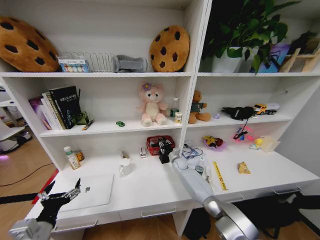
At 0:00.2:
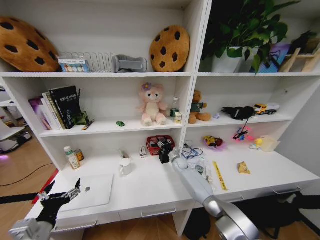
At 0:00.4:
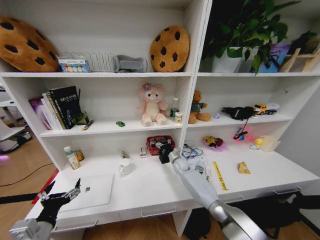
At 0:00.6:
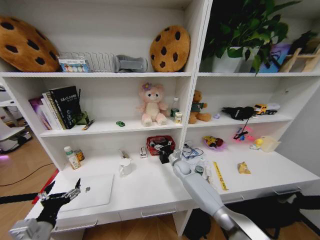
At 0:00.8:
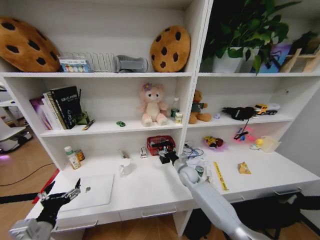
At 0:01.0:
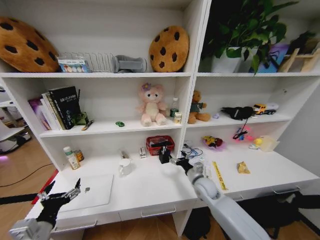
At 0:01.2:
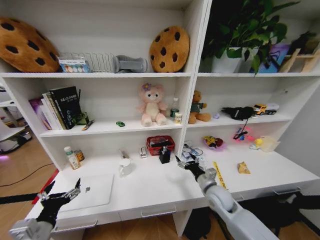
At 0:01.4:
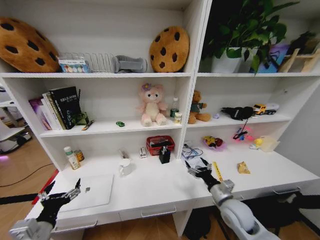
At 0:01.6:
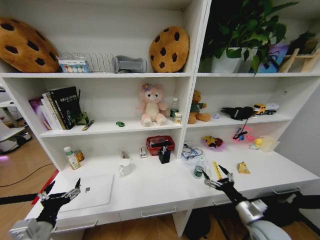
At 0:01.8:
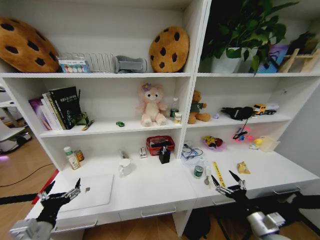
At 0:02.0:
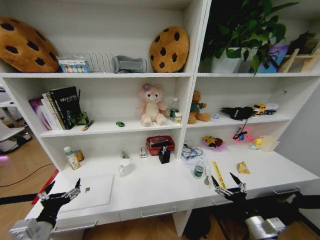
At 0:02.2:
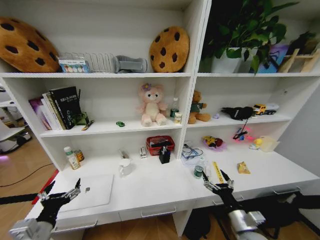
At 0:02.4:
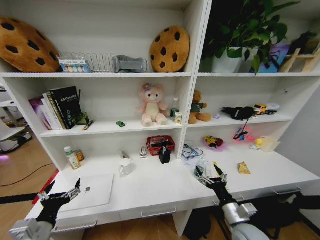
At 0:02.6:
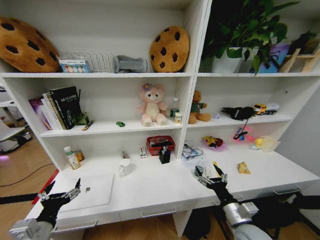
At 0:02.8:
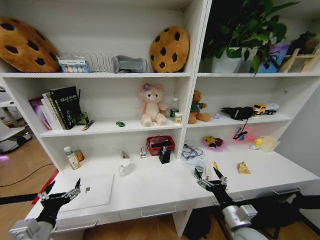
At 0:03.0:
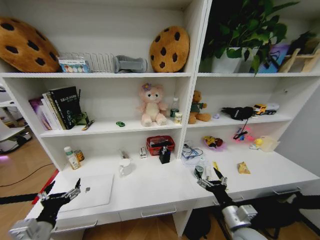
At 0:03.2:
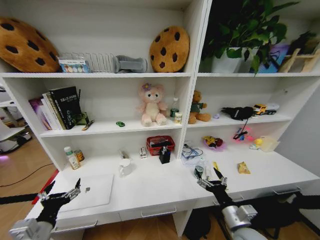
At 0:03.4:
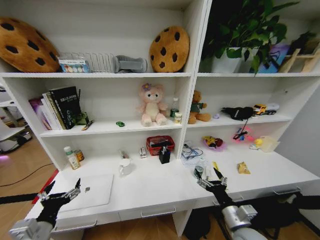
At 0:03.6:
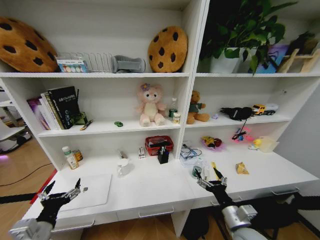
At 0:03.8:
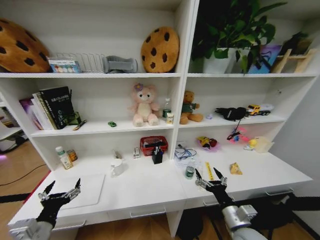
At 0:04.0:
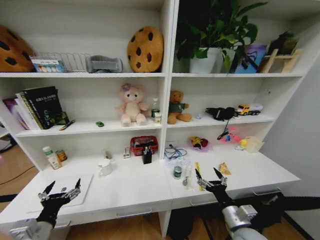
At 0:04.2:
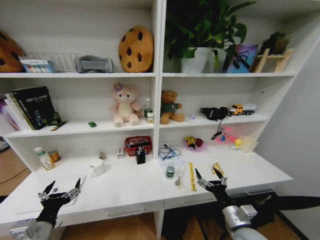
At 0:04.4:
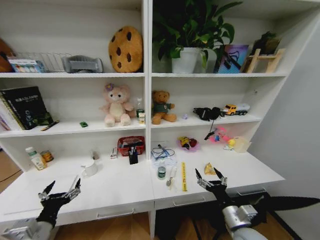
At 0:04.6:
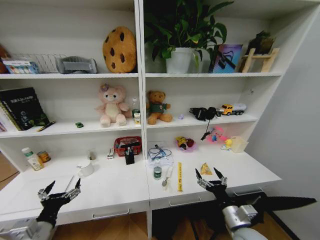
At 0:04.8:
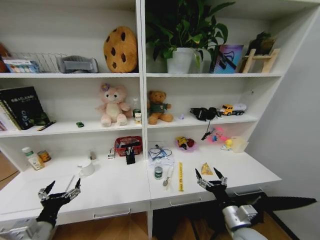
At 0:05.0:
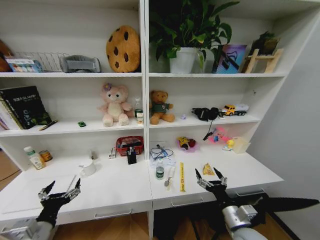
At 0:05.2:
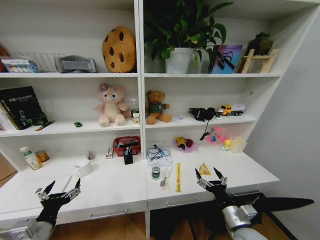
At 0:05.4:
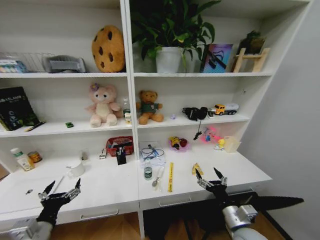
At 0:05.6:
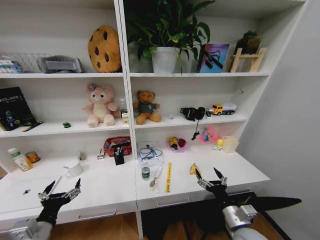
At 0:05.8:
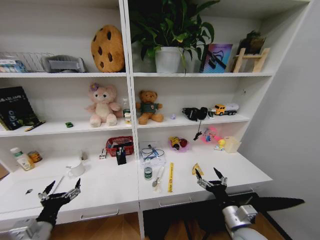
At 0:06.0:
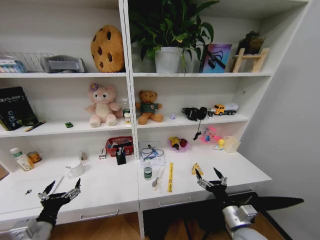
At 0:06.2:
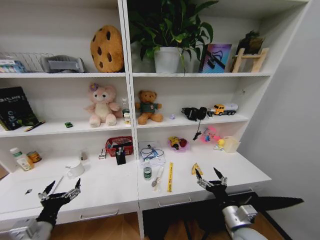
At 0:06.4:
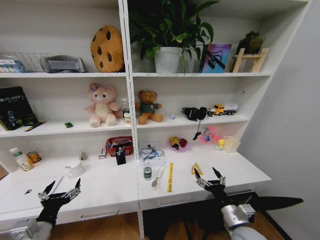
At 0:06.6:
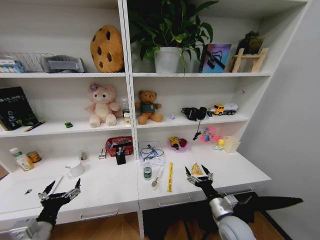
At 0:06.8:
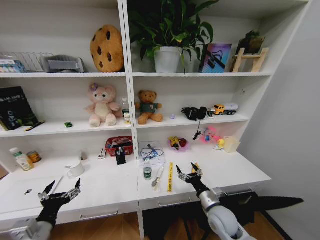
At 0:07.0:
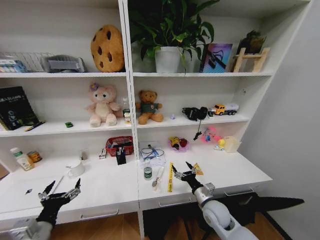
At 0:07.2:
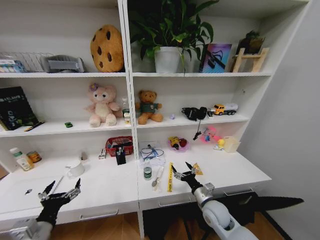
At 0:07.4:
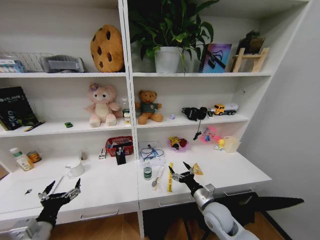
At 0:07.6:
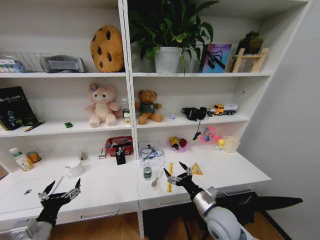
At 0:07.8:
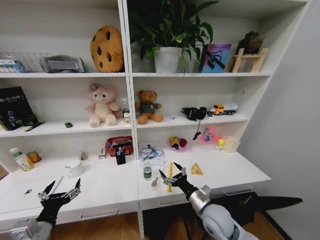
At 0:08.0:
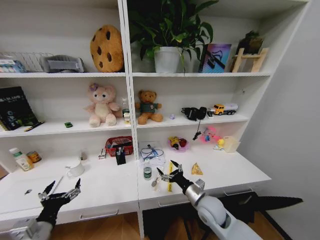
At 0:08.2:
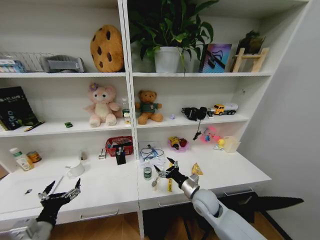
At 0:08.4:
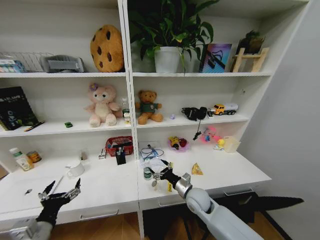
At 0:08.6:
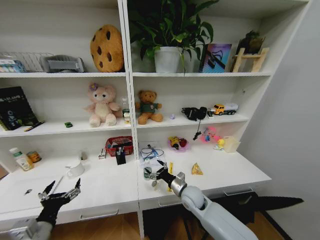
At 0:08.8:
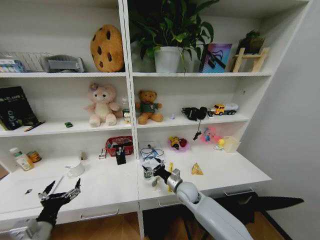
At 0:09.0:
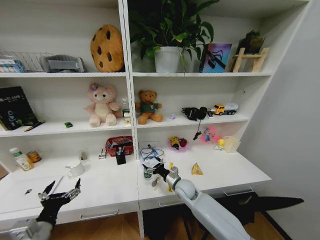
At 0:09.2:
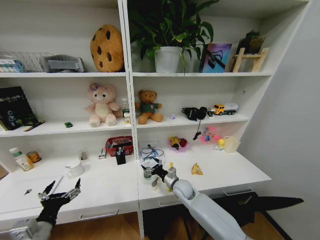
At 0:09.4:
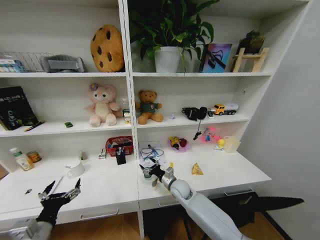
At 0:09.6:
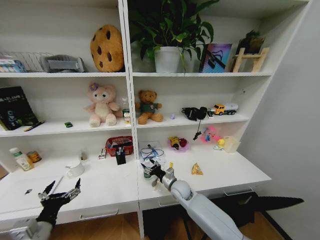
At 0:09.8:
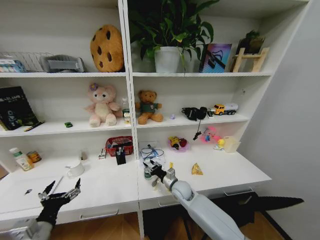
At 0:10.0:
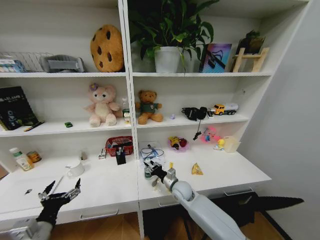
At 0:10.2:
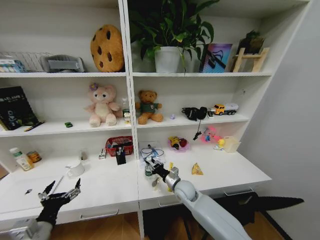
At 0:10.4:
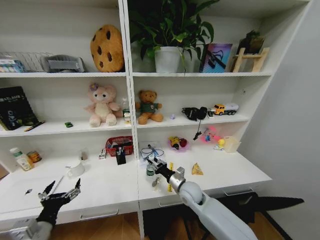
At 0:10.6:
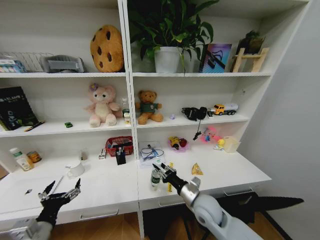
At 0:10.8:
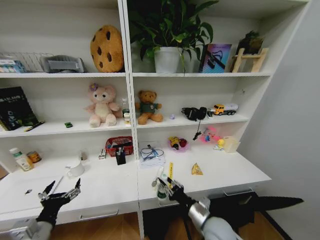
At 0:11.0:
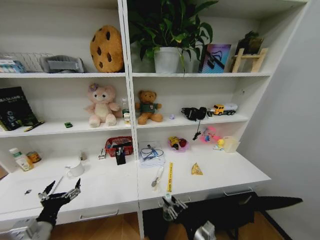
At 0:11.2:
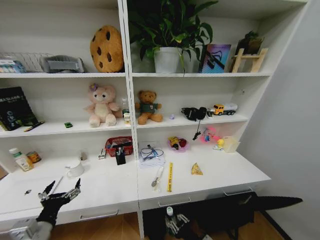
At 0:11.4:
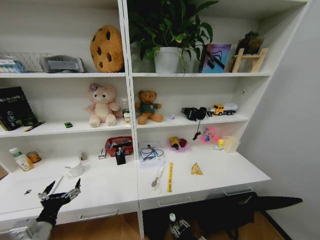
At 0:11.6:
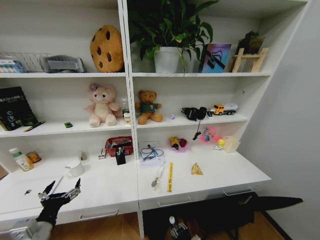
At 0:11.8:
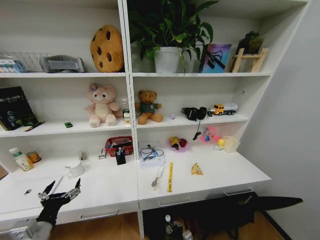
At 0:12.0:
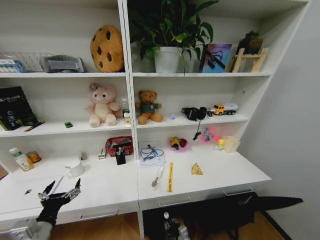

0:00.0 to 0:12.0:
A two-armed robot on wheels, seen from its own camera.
Task of the whole recording: Organize the objects on the table.
0:00.0 to 0:01.6: The right gripper travels backward and to the right by about 40 cm, and opens.
0:01.6 to 0:03.0: The right gripper shifts roughly 10 cm to the left.
0:06.0 to 0:07.6: The right gripper moves to the left and forward, approximately 10 cm.
0:07.6 to 0:09.0: The right gripper travels forward, to the left and downward by approximately 15 cm.
0:09.0 to 0:10.4: The right gripper closes up.
0:10.4 to 0:12.0: The right gripper travels downward and backward by about 30 cm.

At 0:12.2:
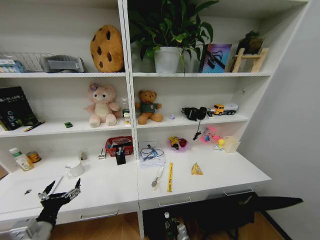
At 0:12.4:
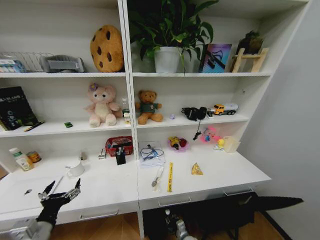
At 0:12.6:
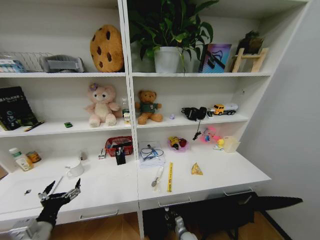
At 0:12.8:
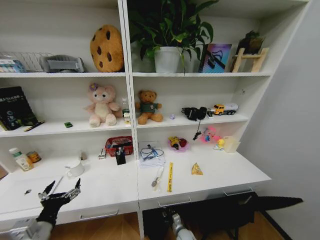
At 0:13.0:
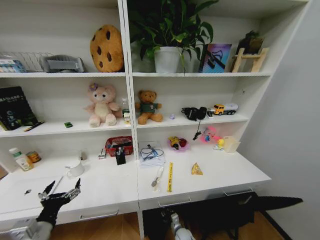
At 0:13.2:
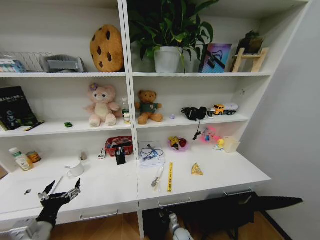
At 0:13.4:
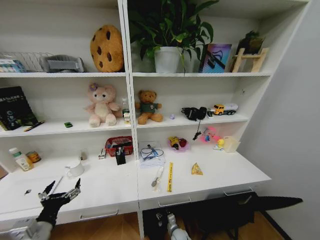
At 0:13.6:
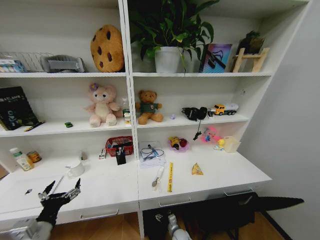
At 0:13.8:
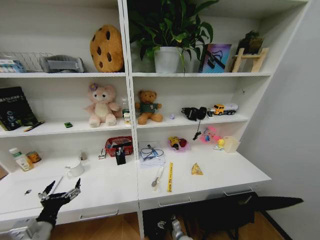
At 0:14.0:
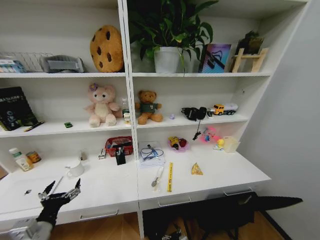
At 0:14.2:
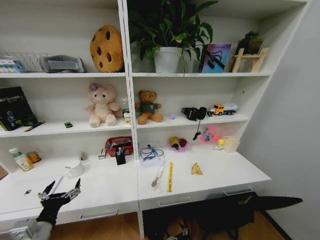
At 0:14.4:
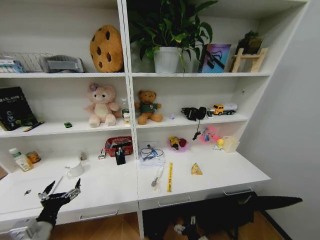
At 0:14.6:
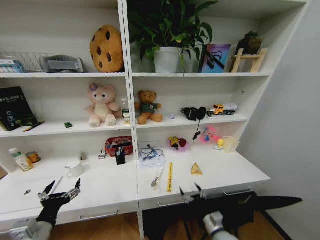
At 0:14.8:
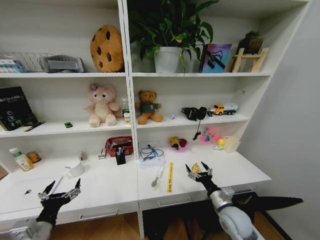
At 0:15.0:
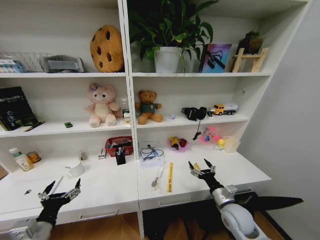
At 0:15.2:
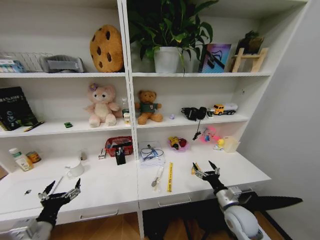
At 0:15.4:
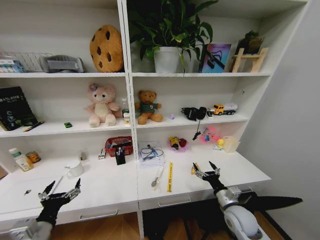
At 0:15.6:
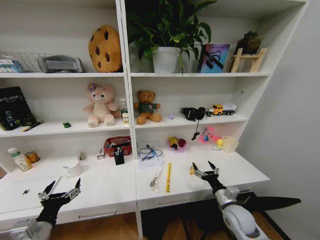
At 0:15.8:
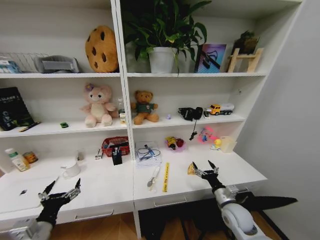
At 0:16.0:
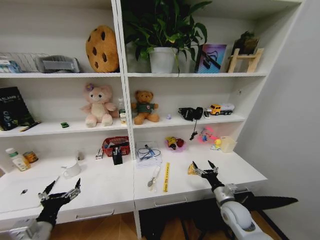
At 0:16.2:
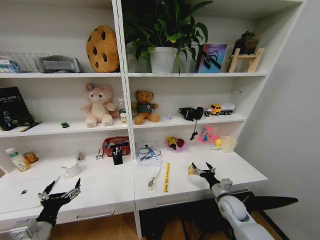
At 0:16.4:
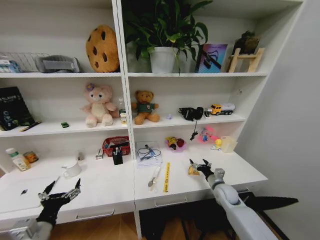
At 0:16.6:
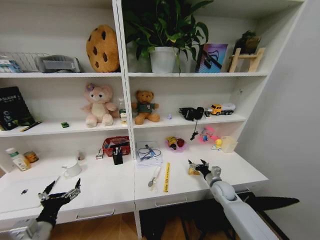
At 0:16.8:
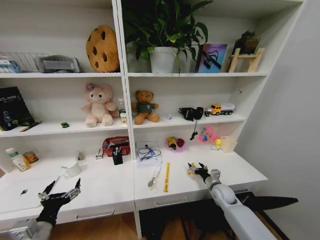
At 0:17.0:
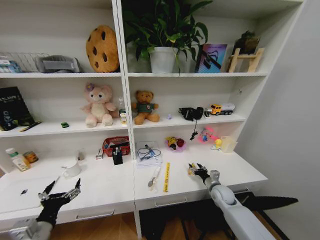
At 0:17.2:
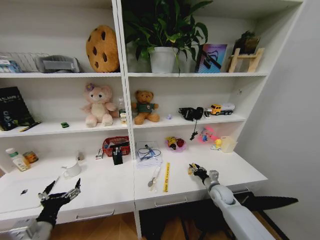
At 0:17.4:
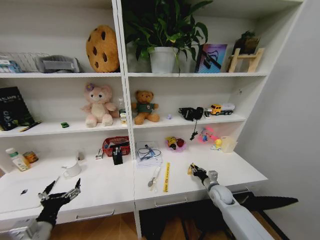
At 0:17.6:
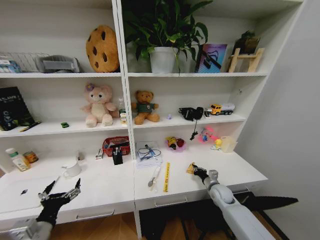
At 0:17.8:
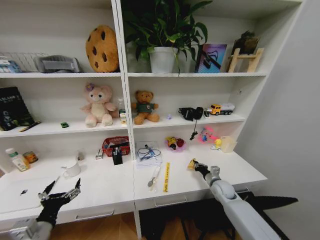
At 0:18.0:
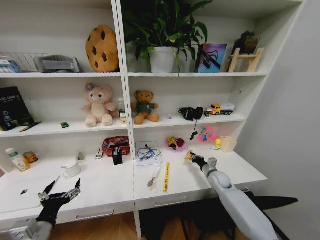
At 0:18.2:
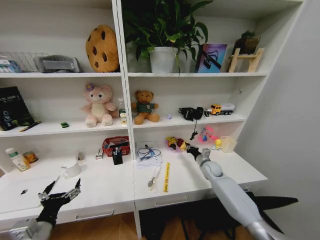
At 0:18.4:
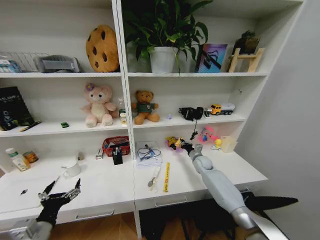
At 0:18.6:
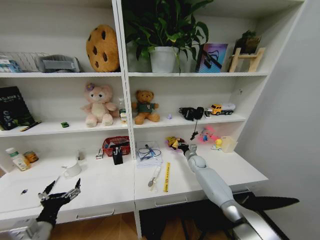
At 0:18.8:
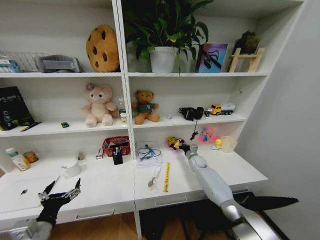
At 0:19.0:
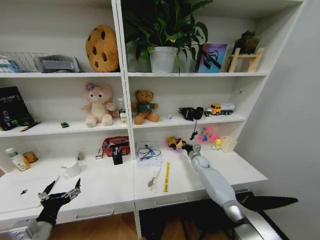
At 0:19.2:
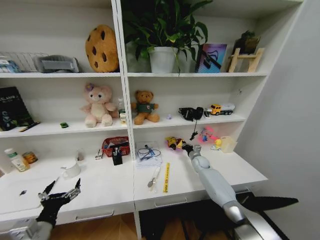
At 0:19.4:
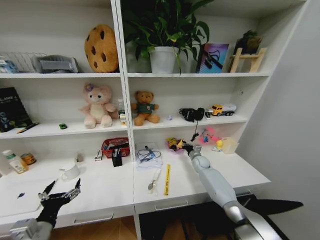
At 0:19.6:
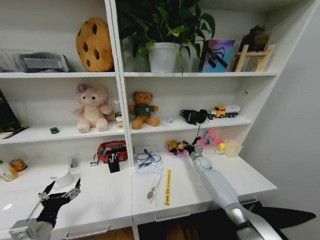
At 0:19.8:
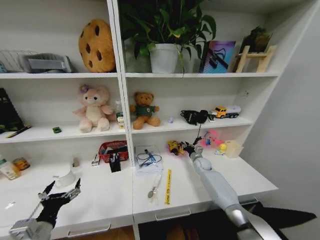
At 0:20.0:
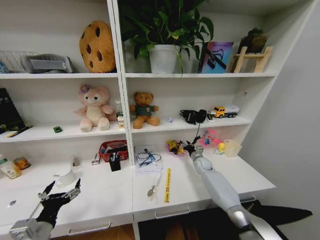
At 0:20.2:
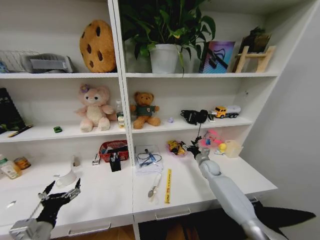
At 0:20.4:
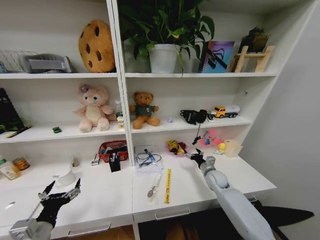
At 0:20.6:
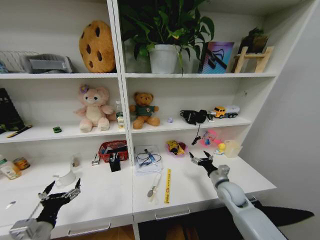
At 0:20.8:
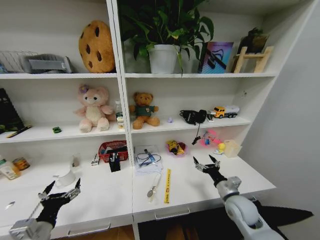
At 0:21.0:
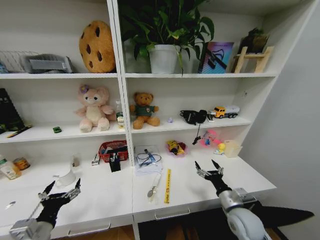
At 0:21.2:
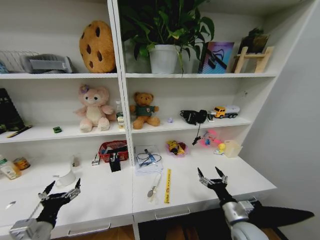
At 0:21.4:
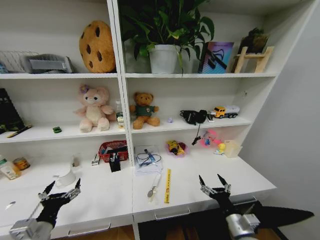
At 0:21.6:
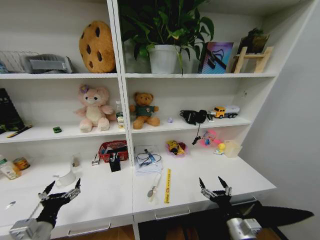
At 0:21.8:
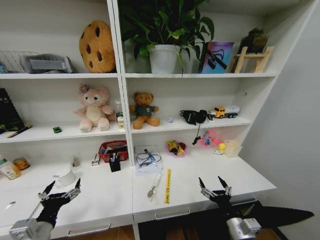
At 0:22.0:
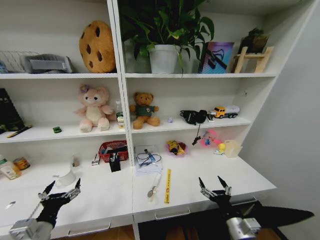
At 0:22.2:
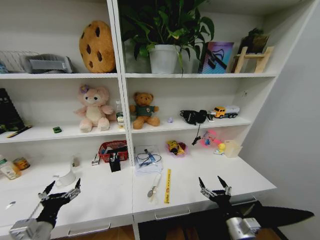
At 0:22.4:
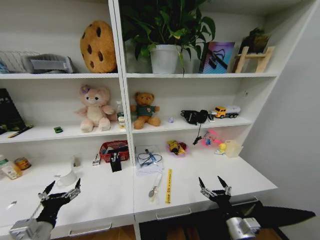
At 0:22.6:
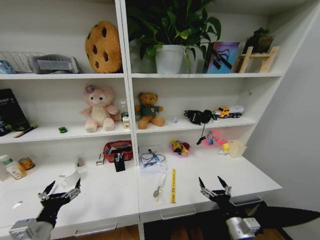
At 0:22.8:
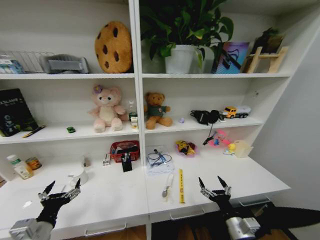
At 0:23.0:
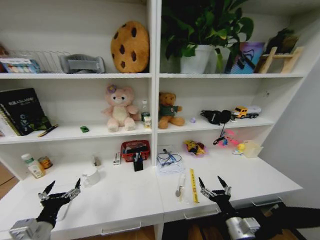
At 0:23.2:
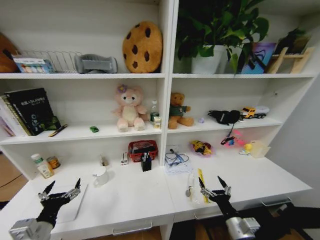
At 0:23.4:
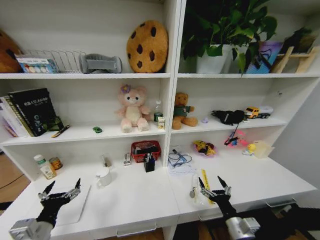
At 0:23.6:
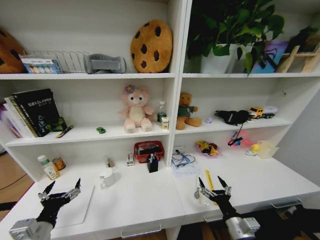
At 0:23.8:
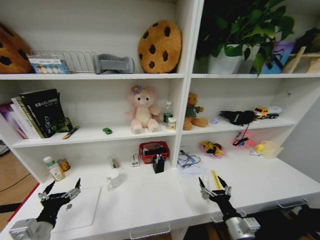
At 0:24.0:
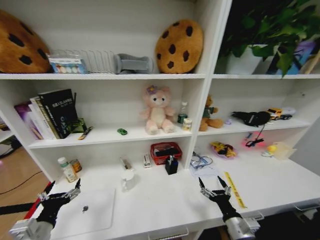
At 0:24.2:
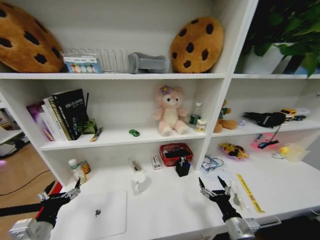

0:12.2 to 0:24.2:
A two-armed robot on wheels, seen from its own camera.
Task of the whole recording: Organize the objects on the table.
0:13.8 to 0:15.2: The right gripper travels upward and to the right by some 35 cm.
0:15.2 to 0:16.6: The right gripper travels forward by roughly 15 cm.
0:16.6 to 0:18.2: The right gripper shifts about 10 cm forward, and closes its fingers.
0:18.2 to 0:19.8: The right gripper is displaced forward by roughly 5 cm.
0:19.8 to 0:21.2: The right gripper is displaced backward by approximately 35 cm, and opens up.
0:21.2 to 0:22.6: The right gripper goes some 5 cm backward.
